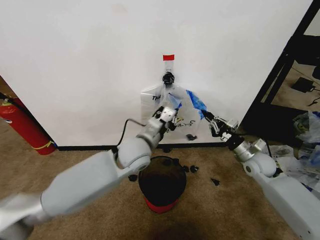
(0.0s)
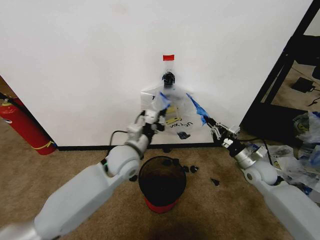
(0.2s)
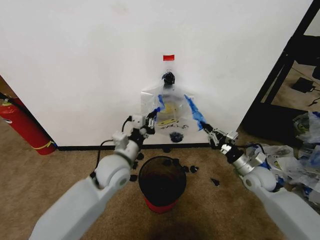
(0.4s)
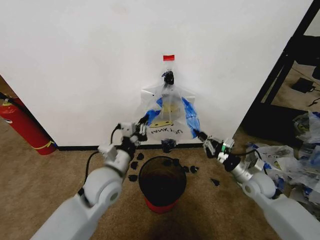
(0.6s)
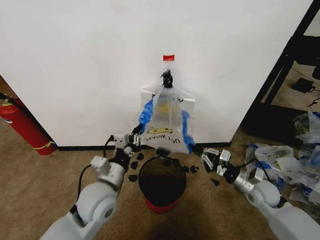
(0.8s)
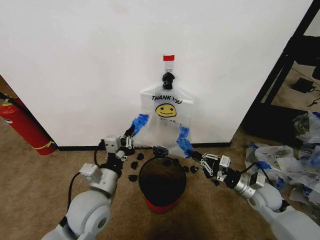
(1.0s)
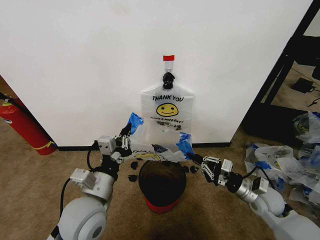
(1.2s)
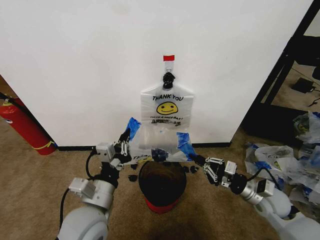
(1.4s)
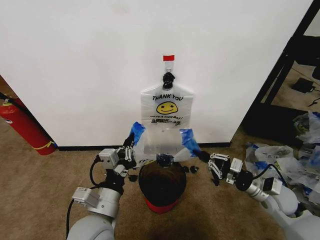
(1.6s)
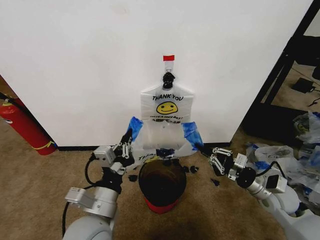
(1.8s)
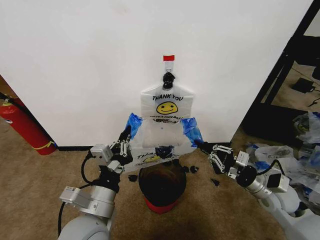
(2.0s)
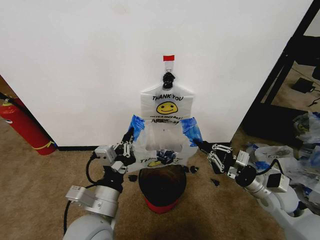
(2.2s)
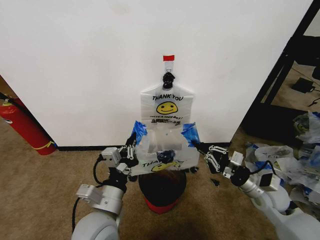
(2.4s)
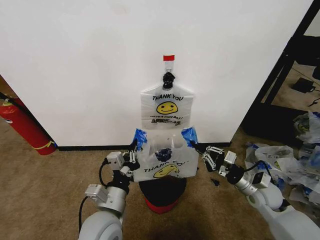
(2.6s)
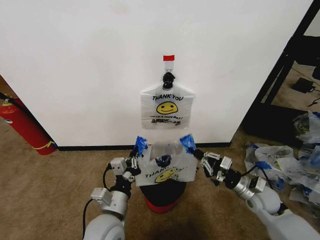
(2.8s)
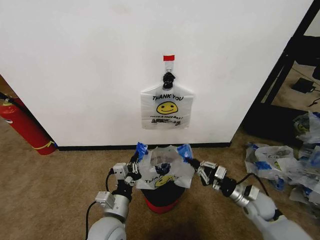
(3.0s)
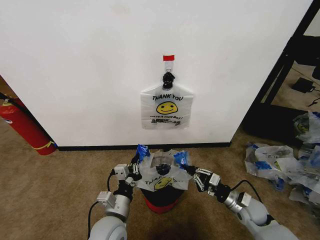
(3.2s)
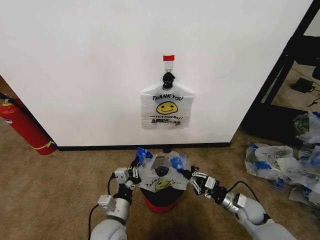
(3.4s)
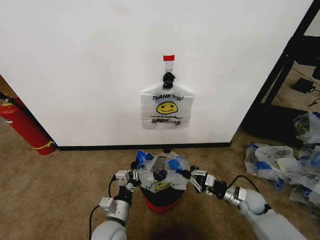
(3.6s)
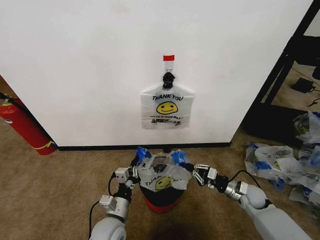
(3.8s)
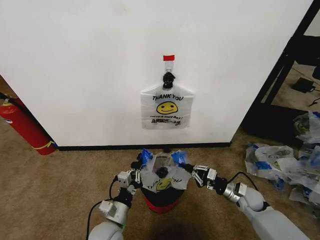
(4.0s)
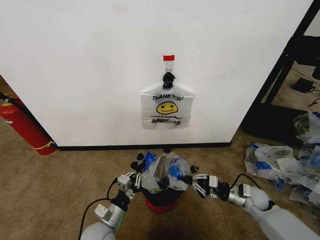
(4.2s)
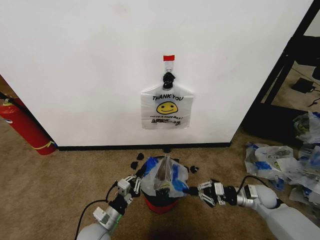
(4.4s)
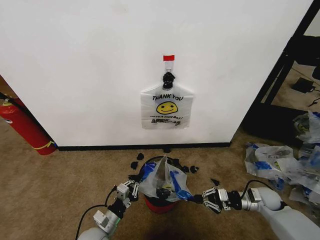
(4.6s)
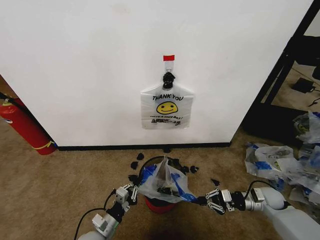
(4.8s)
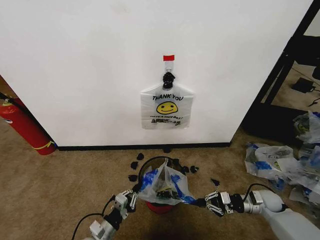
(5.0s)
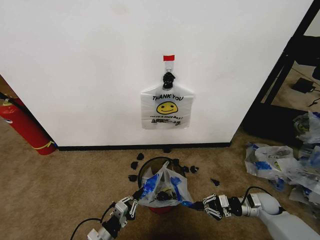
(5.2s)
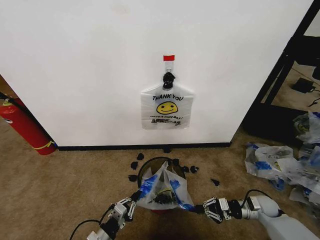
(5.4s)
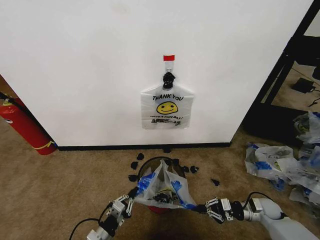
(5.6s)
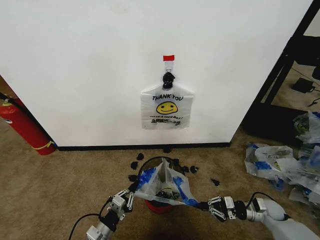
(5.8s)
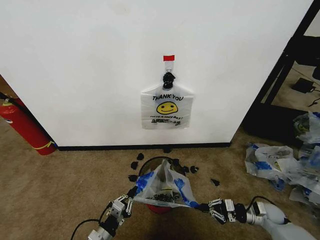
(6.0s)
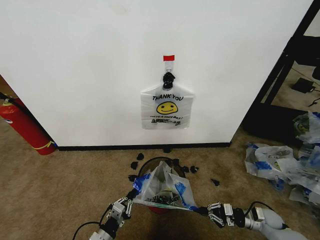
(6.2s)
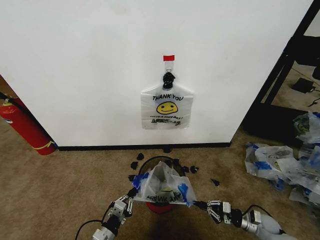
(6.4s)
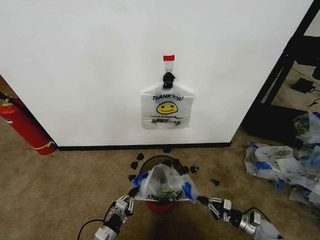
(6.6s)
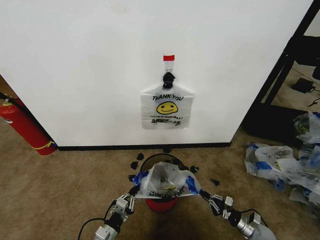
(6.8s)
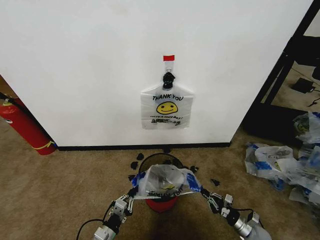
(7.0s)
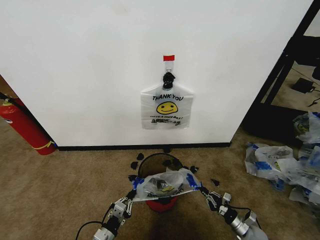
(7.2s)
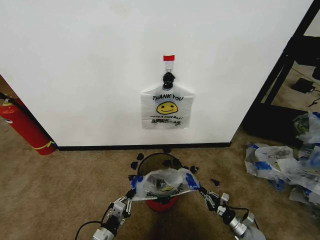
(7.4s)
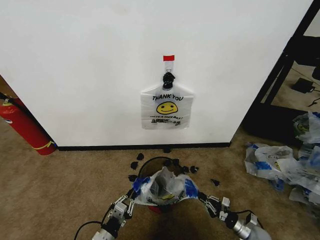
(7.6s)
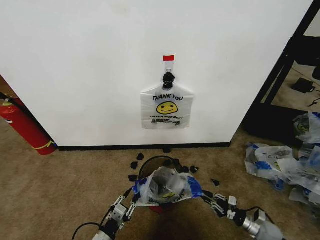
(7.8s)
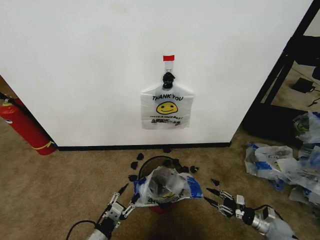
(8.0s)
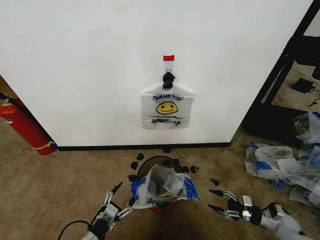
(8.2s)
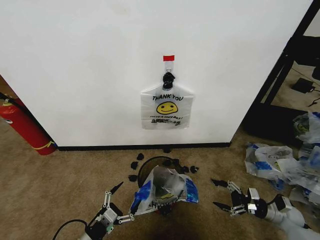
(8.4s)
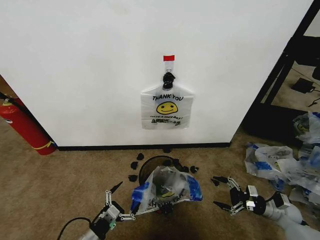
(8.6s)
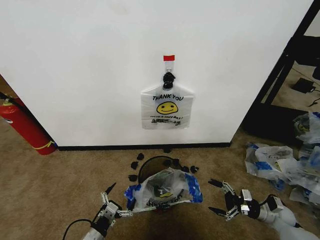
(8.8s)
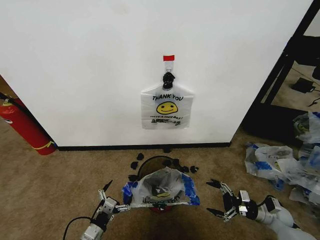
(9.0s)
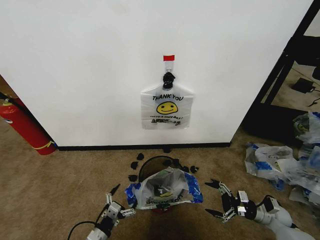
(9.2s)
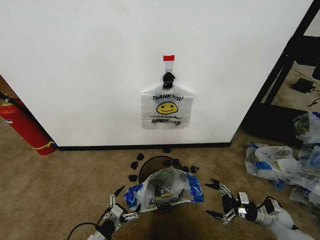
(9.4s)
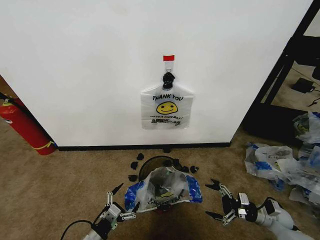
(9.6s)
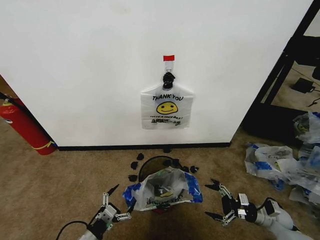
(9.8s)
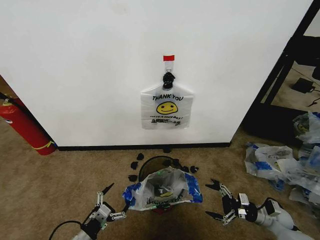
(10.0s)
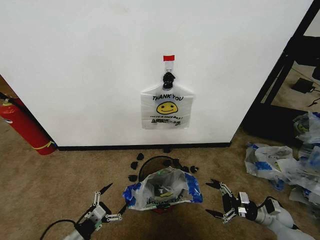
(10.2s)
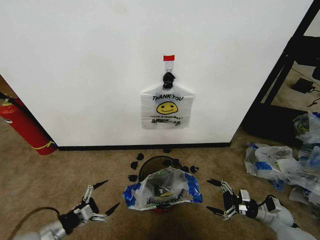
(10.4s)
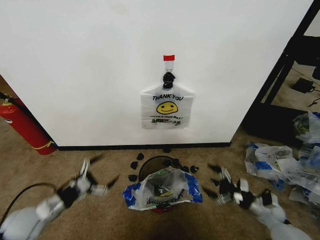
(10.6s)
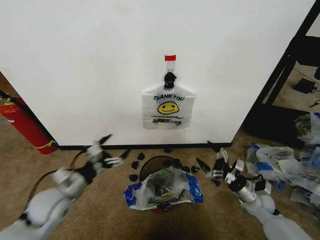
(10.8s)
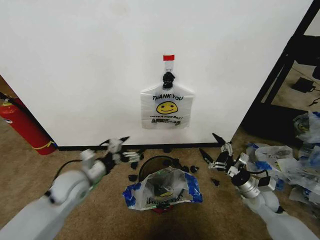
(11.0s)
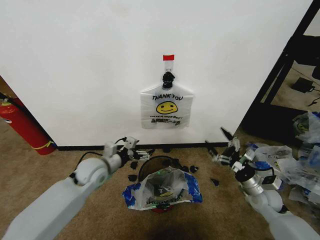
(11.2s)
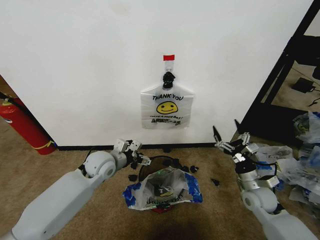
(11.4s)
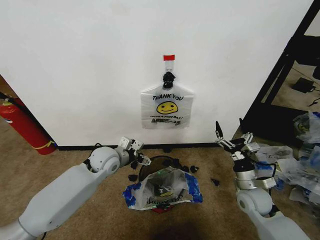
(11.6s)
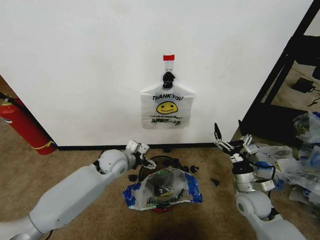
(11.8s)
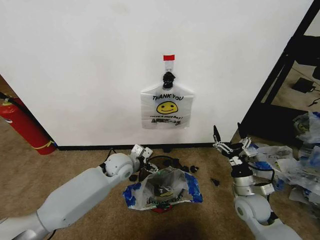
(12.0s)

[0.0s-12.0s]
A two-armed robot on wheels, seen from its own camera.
Task of the whole recording: Pick up the garbage bag from the wall and place it over the trash bin.
0.0s to 1.6s: The right gripper shifts roughly 10 cm backward. The left gripper goes about 20 cm backward.
1.6s to 3.0s: Both grippers travel together downward, roughly 10 cm.
3.0s to 4.4s: The left gripper travels downward and to the left by roughly 10 cm.
4.4s to 6.0s: The left gripper shifts some 5 cm backward. Meanwhile the right gripper is displaced downward and to the right by roughly 10 cm.
6.0s to 7.6s: The right gripper moves downward and backward, roughly 10 cm.
7.6s to 9.0s: The right gripper heads upward, to the right and forward, covering some 15 cm, and opens its fingers. Meanwhile the left gripper shifts by some 5 cm, and opens.
9.0s to 10.4s: The left gripper moves to the left and upward, approximately 15 cm.
10.4s to 12.0s: The left gripper travels to the right and forward by about 35 cm, while the right gripper moves to the left and upward, roughly 20 cm.

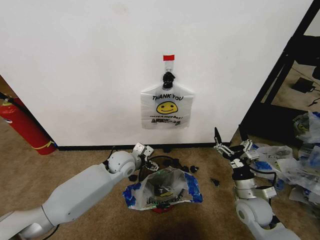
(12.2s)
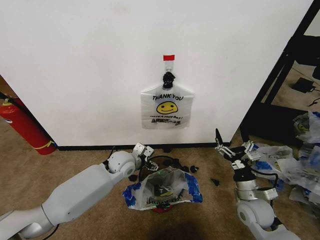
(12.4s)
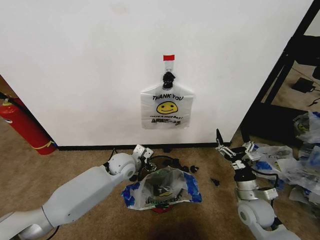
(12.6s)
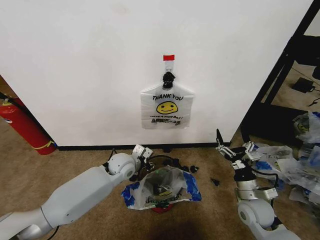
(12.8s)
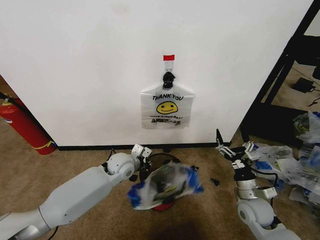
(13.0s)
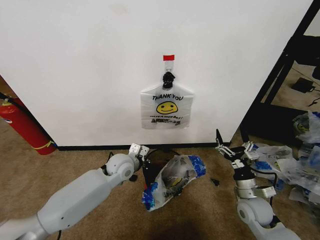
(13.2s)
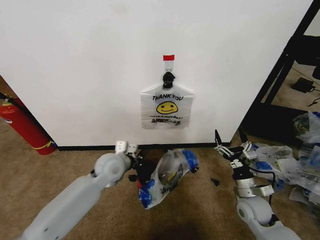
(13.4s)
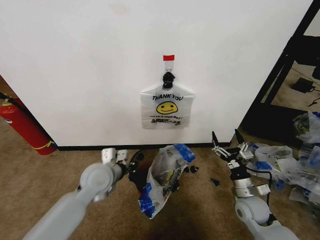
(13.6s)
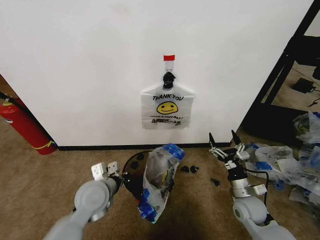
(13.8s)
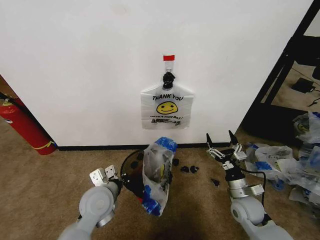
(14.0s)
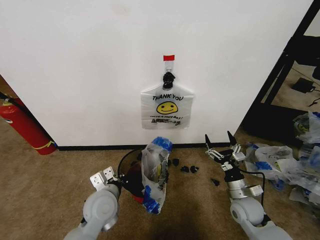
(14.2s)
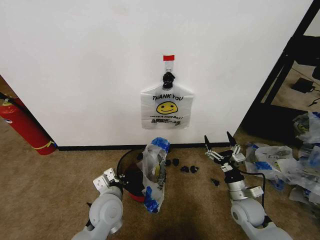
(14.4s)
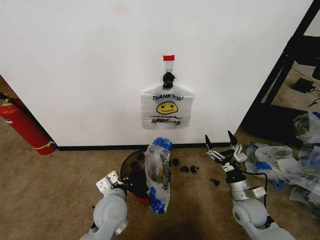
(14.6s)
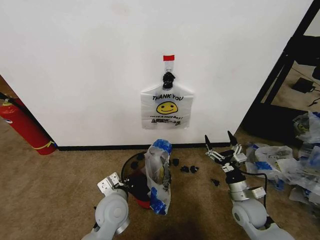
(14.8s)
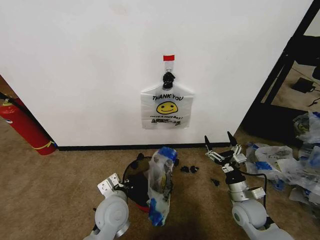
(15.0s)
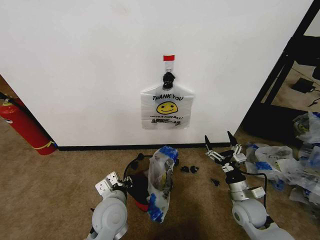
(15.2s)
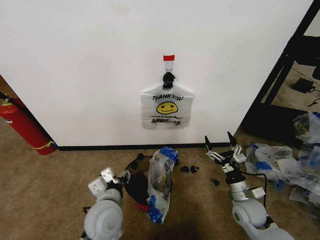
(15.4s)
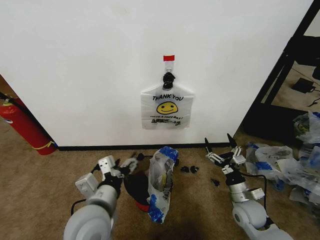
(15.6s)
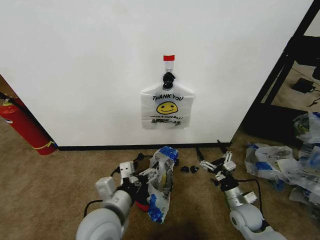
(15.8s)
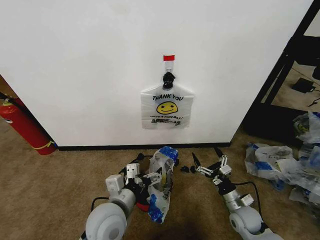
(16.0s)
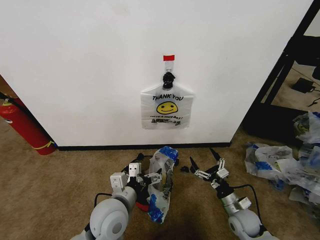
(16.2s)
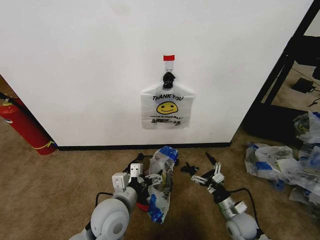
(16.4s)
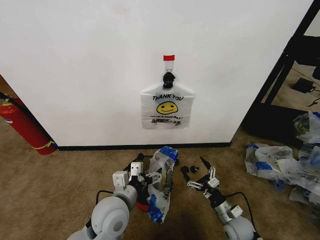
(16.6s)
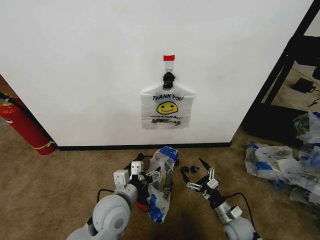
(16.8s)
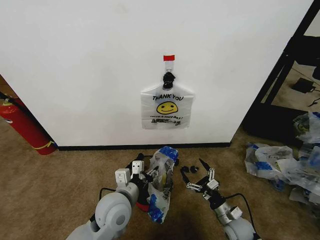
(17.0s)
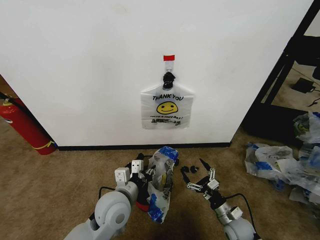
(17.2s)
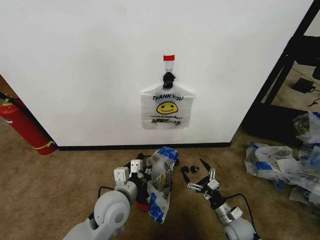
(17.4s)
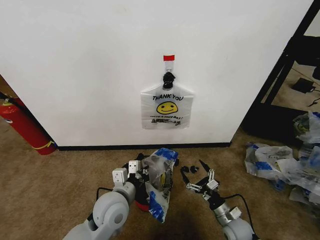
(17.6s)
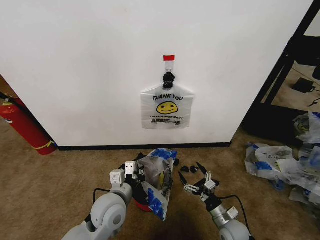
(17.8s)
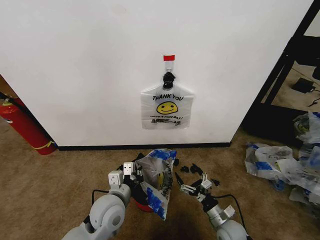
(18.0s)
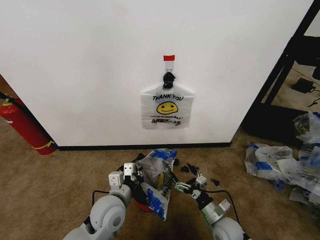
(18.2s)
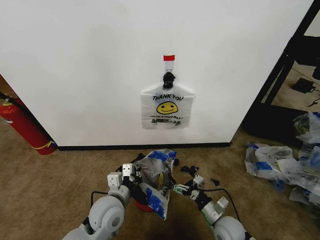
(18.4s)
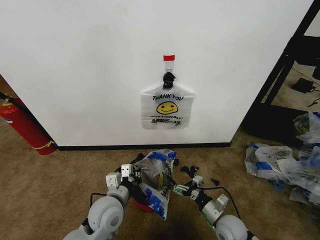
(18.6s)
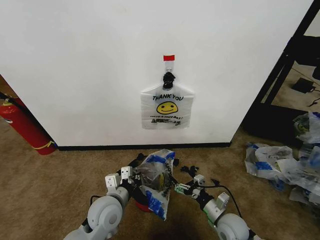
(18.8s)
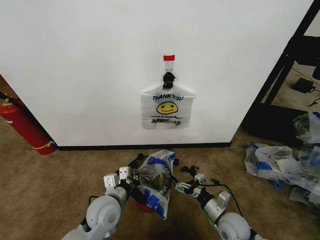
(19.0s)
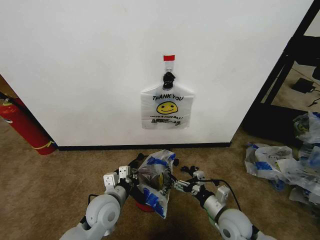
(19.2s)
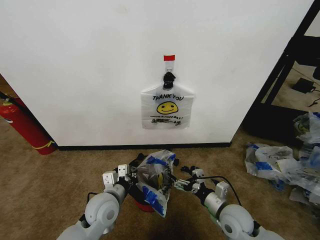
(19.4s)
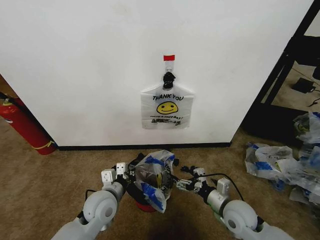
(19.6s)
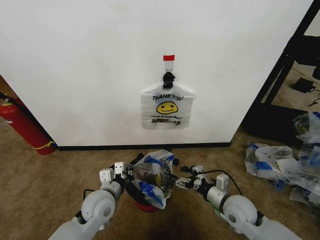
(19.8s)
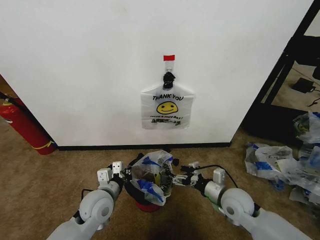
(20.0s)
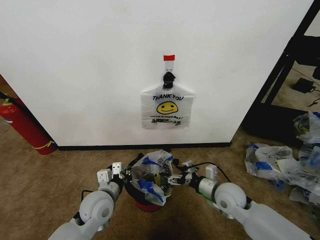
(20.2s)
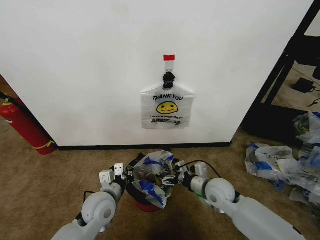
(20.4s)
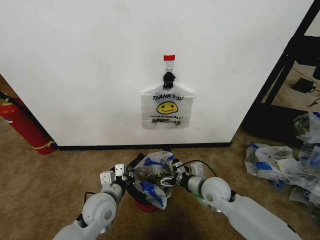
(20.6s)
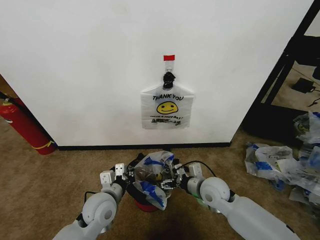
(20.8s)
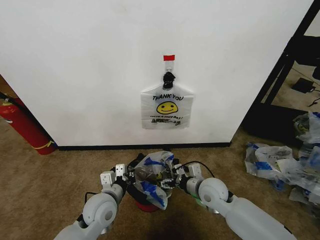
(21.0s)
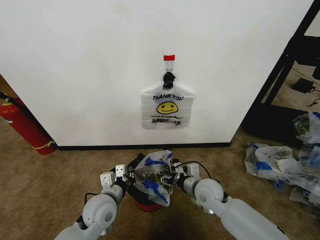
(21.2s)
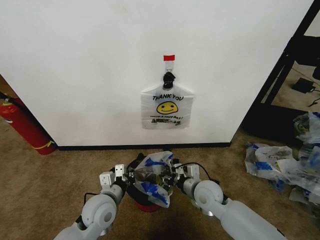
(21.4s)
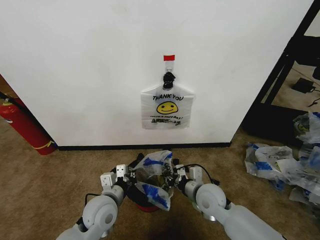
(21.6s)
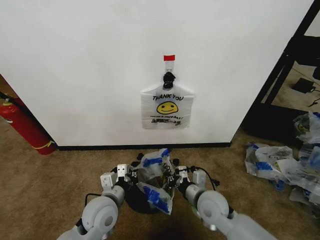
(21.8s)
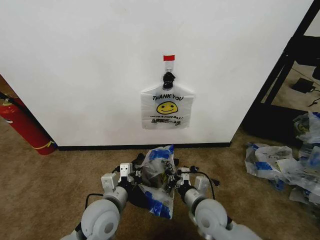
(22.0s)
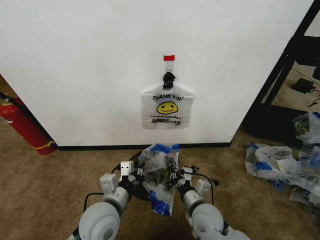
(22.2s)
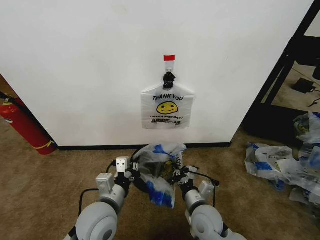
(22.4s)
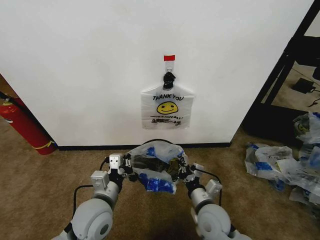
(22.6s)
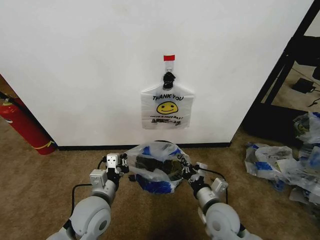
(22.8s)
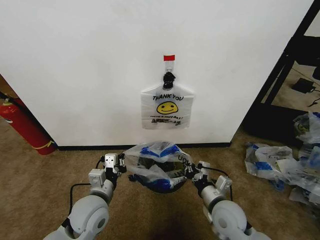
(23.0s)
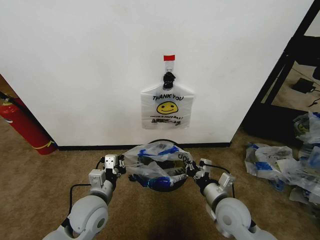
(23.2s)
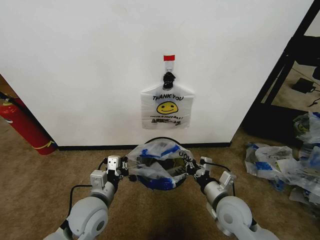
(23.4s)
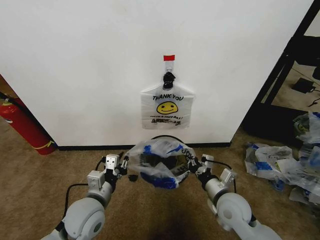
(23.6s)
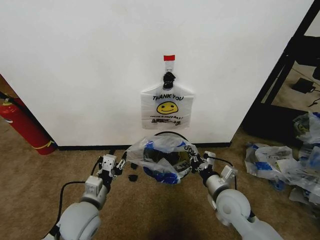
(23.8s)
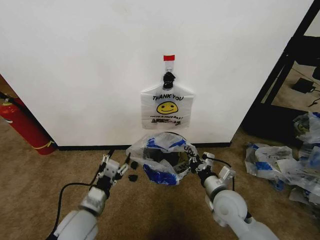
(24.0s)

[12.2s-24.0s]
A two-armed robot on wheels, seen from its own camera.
Task of the whole recording: Pick up the garbage bag from the wall and place it over the trash bin.
12.2s to 13.6s: The left gripper heads backward, upward and to the left, covering approximately 10 cm, and closes up.
13.6s to 15.2s: The left gripper goes roughly 10 cm backward and to the right, and opens up.
15.2s to 16.6s: The right gripper is displaced downward by some 10 cm. Meanwhile the left gripper travels upward and back again, roughly 10 cm each way, and opens up.
16.6s to 18.2s: The left gripper closes up. The right gripper ends up roughly 5 cm from where it was.
18.2s to 19.6s: The right gripper goes roughly 10 cm upward.
19.6s to 21.0s: The right gripper heads to the left and forward, covering about 10 cm.
21.0s to 22.6s: The left gripper heads upward, covering about 5 cm. The right gripper is displaced backward by approximately 10 cm, and closes.
22.6s to 24.0s: The left gripper moves to the left, roughly 5 cm, and opens up. Meanwhile the right gripper shifts some 5 cm to the right.
